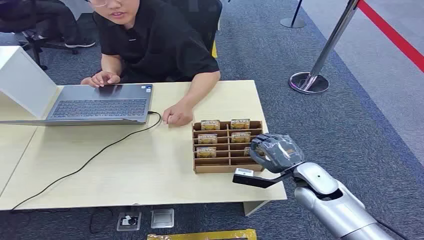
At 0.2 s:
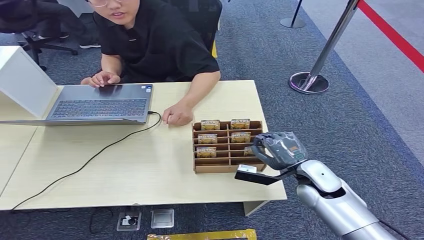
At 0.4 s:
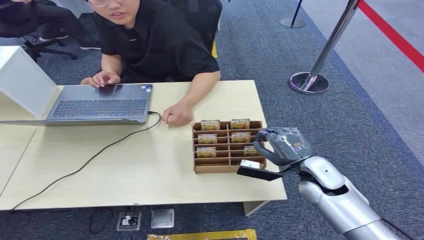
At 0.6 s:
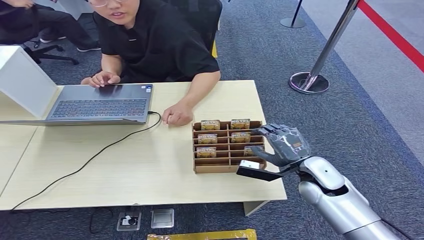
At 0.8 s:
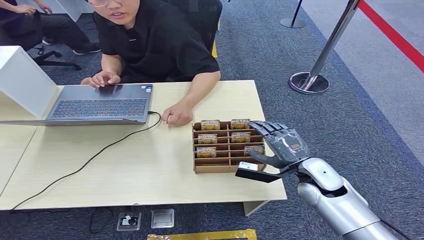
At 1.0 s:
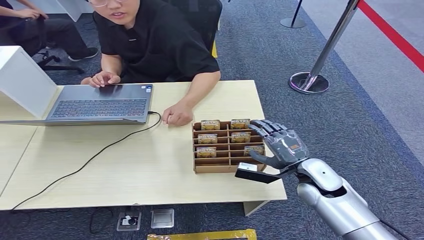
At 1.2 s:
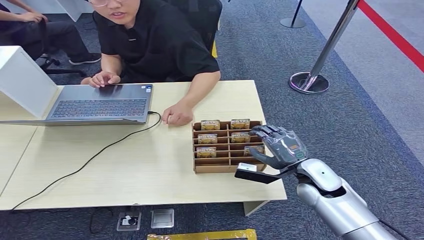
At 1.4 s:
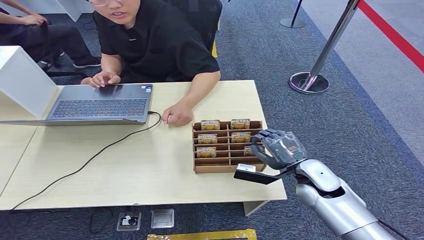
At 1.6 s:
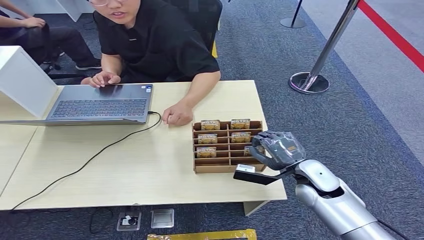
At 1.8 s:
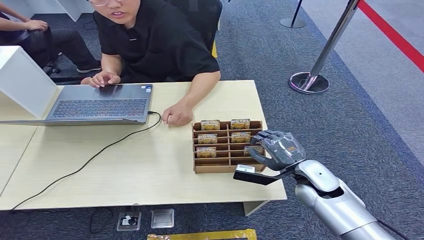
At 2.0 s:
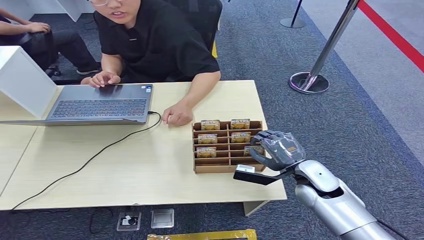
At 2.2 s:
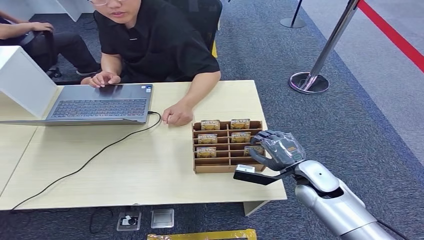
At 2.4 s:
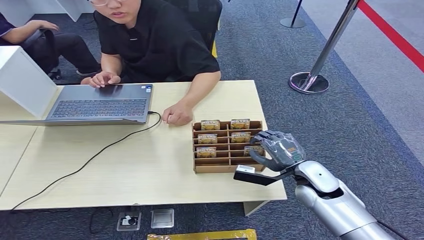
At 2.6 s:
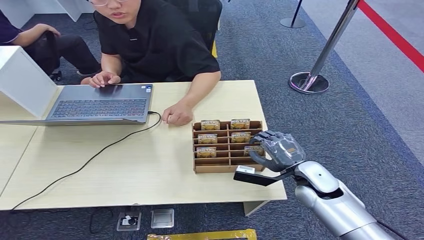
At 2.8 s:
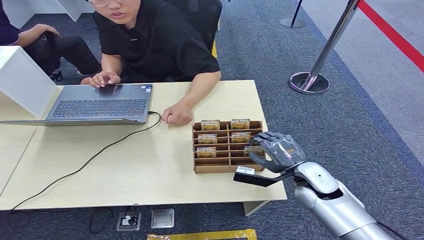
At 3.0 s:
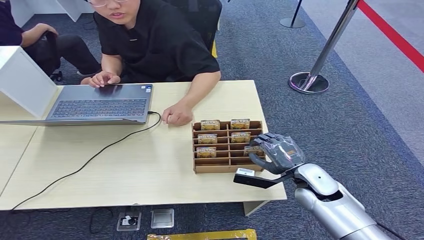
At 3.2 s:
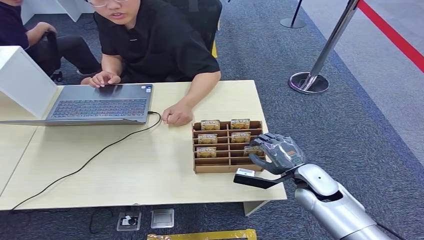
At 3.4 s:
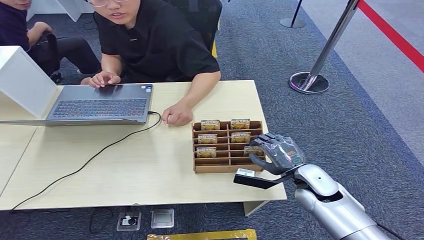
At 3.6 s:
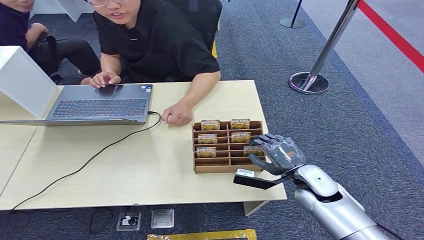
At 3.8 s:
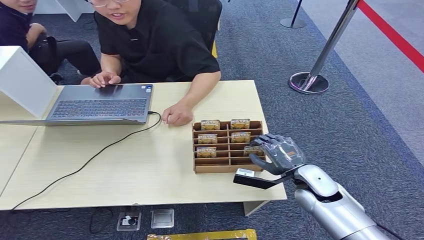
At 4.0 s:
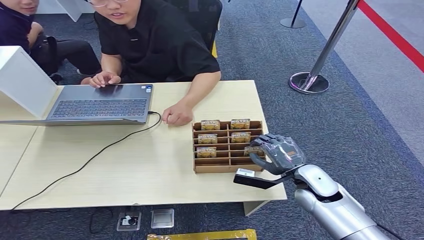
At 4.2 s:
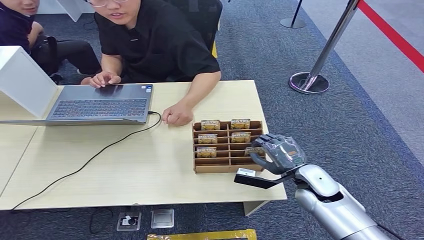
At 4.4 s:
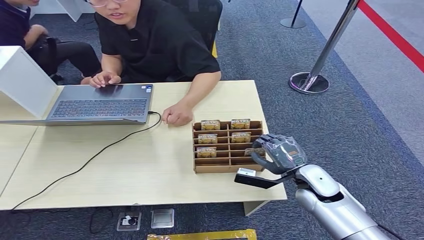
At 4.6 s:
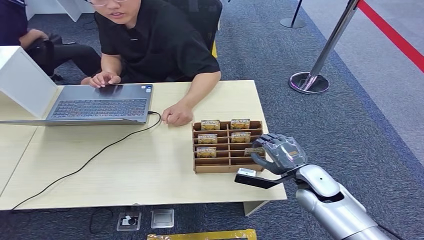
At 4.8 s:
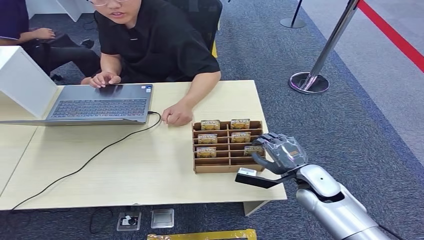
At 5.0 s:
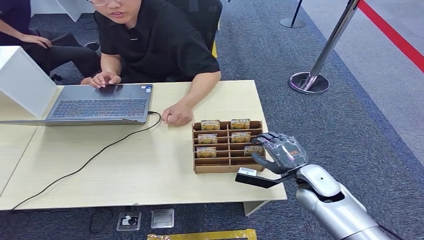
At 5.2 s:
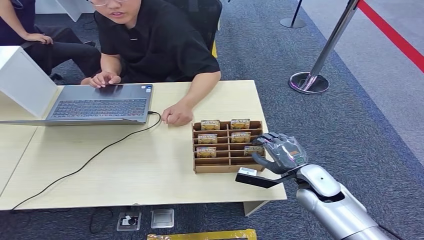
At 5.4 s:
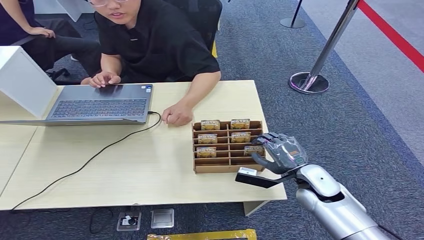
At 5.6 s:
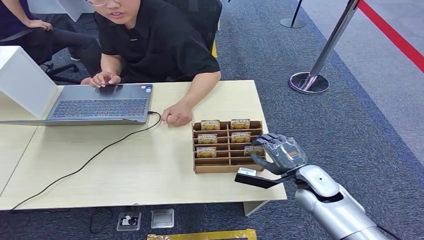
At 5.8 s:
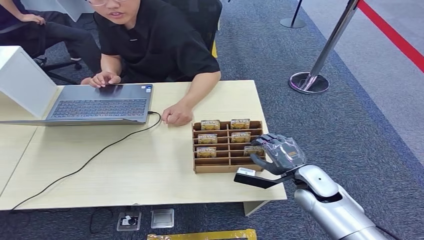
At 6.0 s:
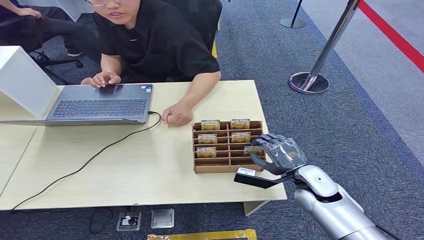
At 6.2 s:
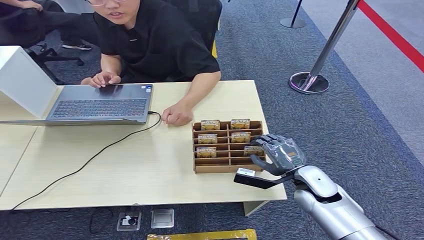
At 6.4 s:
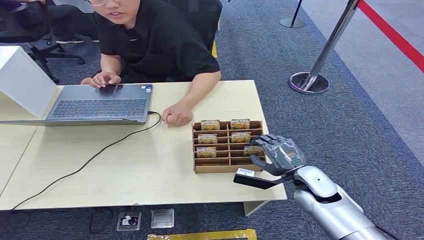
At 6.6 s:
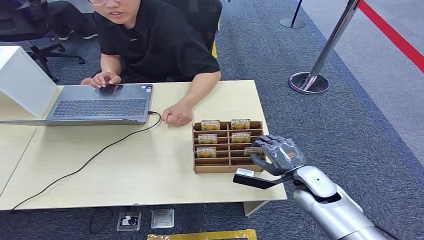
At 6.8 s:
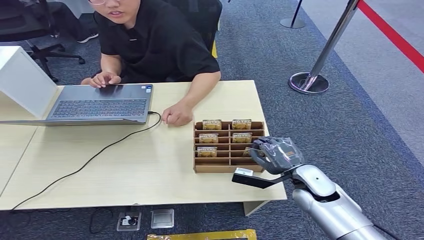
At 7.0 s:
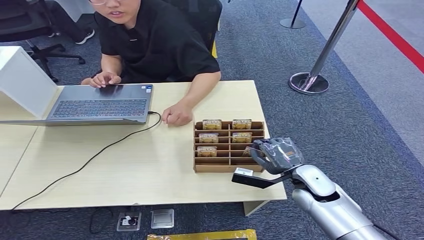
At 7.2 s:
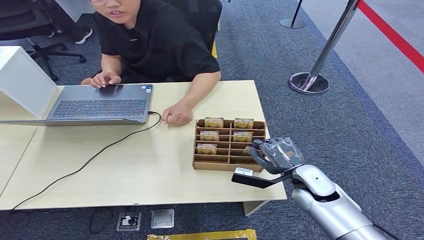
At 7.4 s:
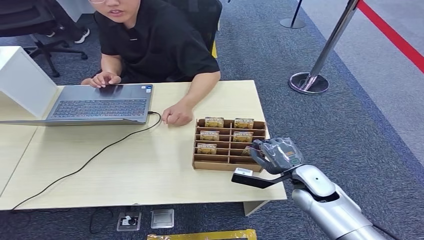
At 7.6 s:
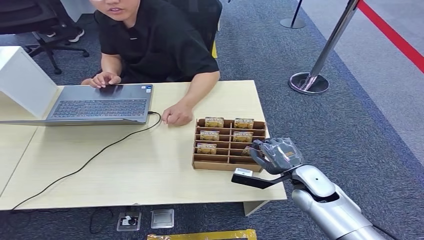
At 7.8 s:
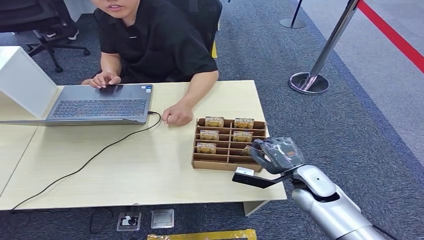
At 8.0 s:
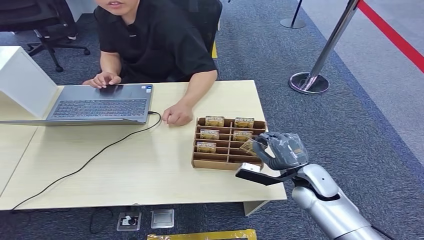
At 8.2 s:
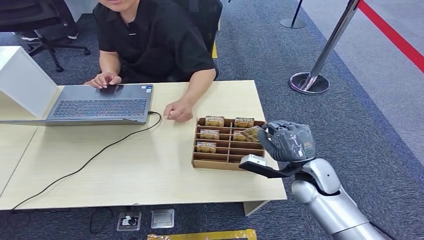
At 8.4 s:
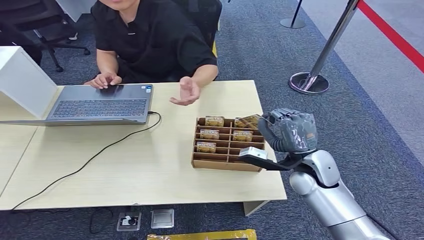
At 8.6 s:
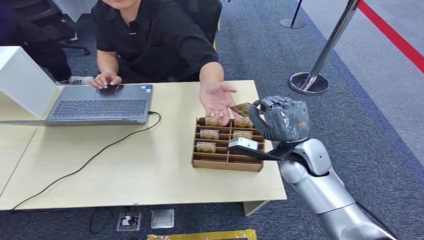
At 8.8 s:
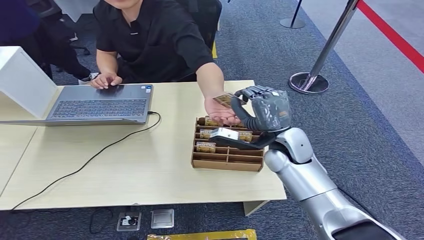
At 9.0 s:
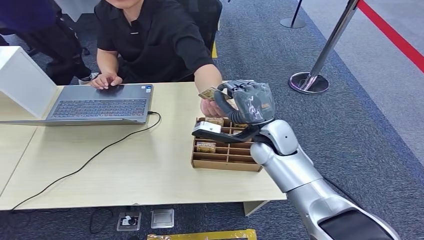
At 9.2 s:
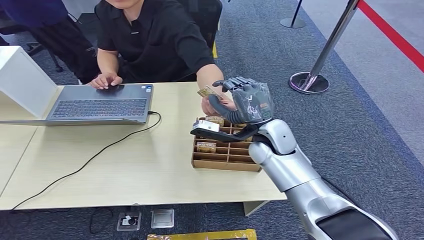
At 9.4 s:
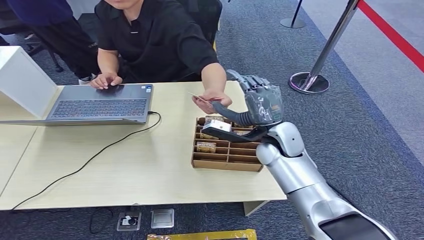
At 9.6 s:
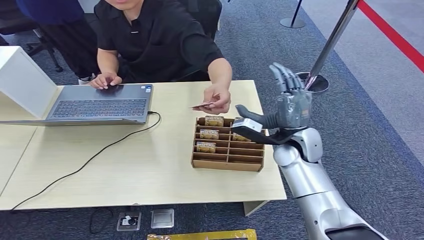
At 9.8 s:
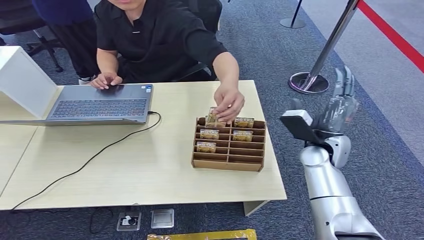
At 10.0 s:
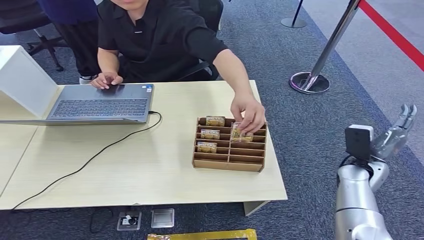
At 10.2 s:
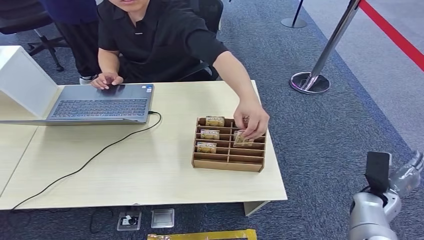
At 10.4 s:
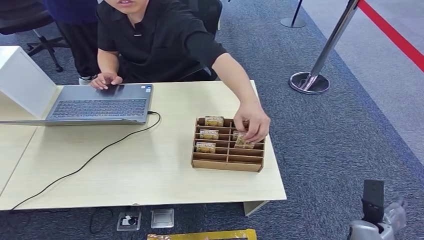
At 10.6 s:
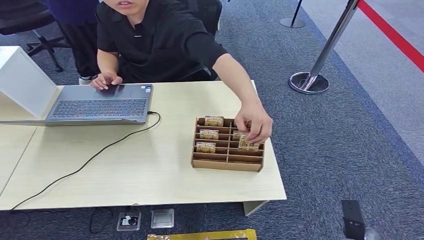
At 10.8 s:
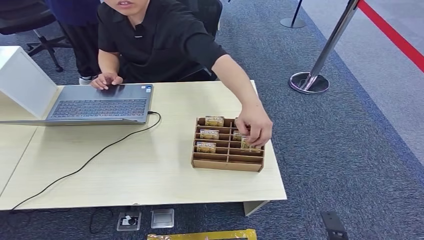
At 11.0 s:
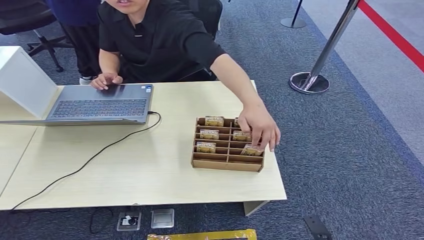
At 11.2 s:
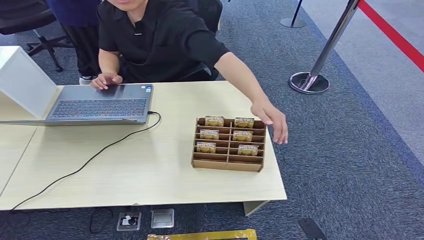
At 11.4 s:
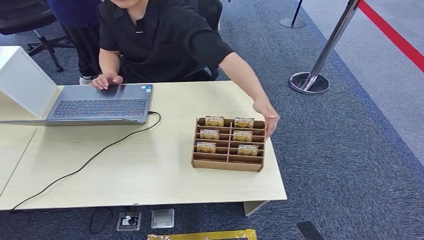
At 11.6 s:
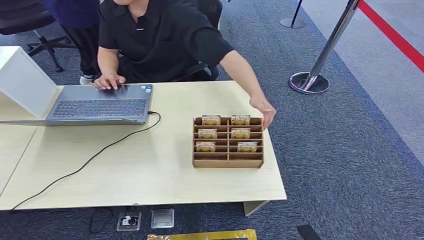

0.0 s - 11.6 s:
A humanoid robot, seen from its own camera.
Step, 0.0 s - 8.0 s: Pick up the key card from the card box.
Step, 8.4 s - 11.6 s: Hand the key card to the target.
1.4 s - 2.8 s: Both hands stay about where they are.
2.8 s - 5.8 s: Neither hand changes place.
5.8 s - 7.2 s: Both hands stay about where they are.
7.2 s - 8.8 s: The right hand moves upward, forward and to the left, about 15 cm.
8.8 s - 10.2 s: The right hand is displaced to the right, downward and backward by approximately 30 cm.
10.2 s - 11.6 s: The right hand travels backward, downward and to the left by roughly 25 cm.
